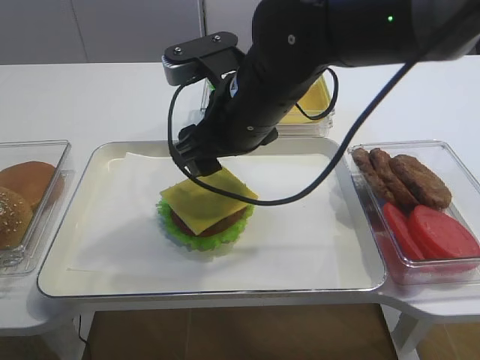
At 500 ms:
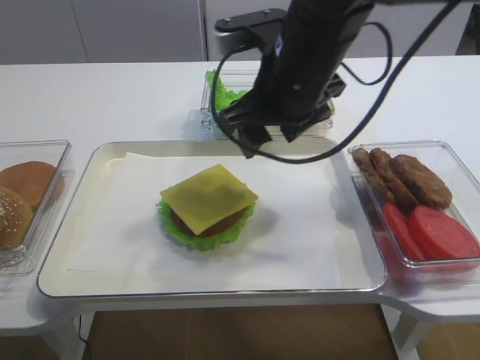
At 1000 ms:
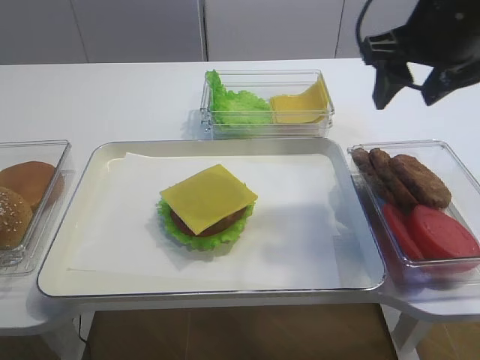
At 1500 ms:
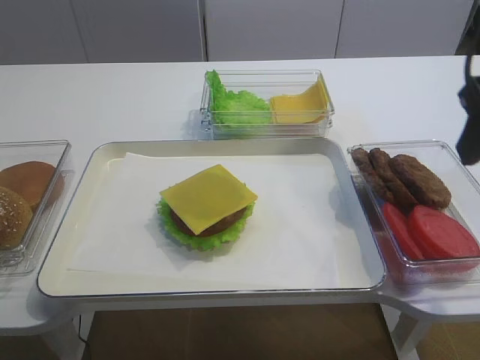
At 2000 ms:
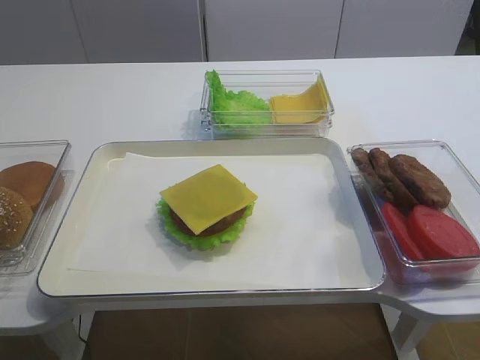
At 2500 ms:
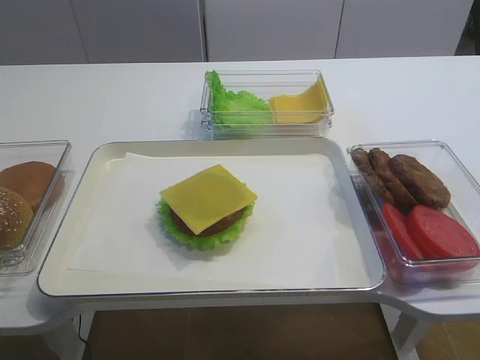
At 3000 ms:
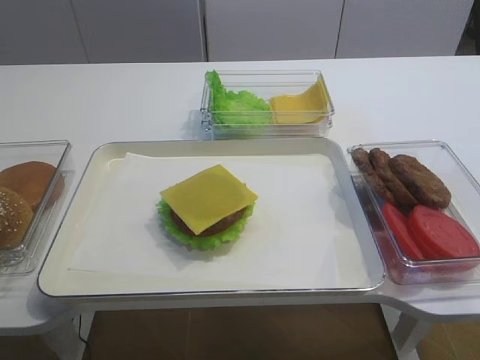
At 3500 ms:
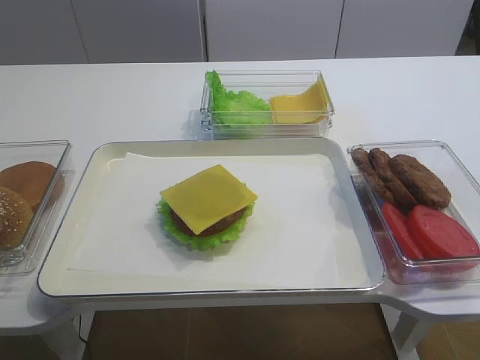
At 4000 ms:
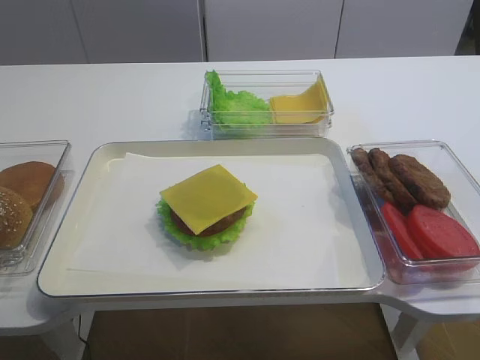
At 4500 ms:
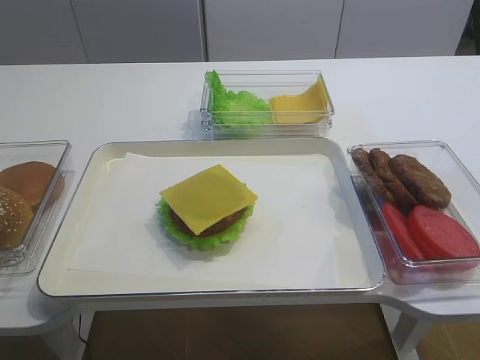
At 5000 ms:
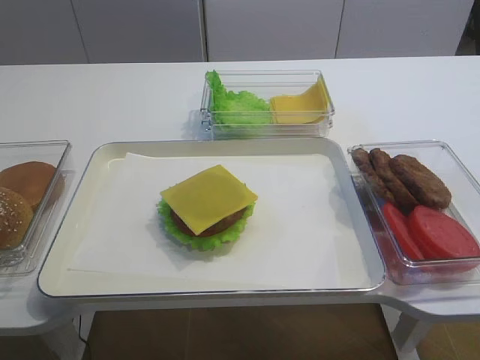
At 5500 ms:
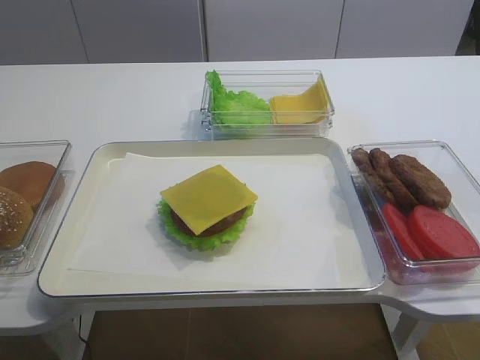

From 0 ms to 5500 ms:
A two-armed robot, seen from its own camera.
From 0 ms to 2000 ms: The right gripper is displaced backward, to the right and upward by about 35 cm.
From 2000 ms to 3500 ms: The right gripper moves downward and backward, approximately 10 cm.

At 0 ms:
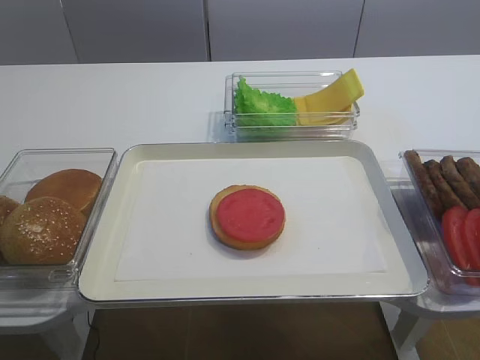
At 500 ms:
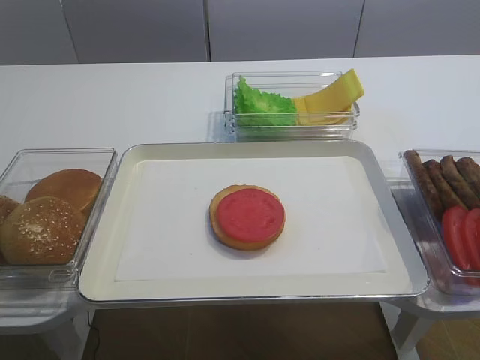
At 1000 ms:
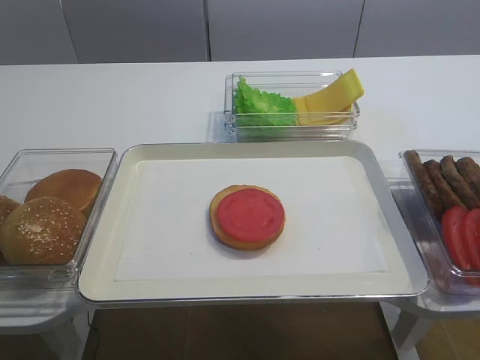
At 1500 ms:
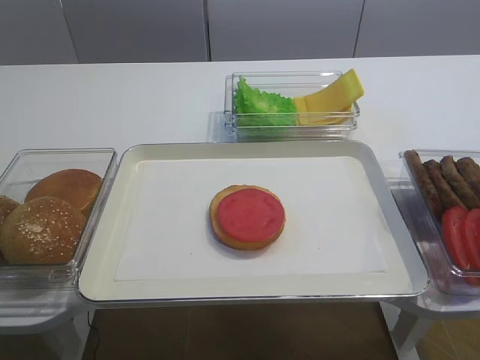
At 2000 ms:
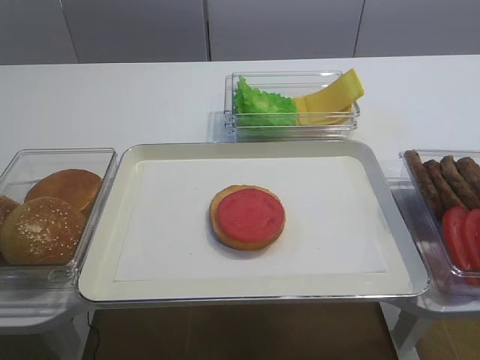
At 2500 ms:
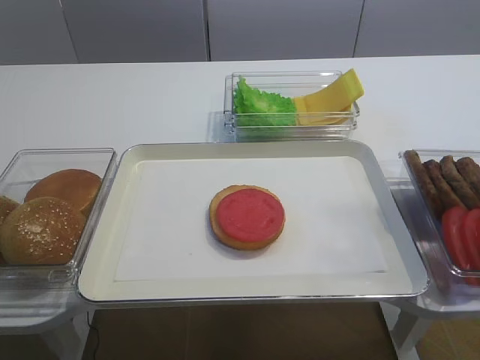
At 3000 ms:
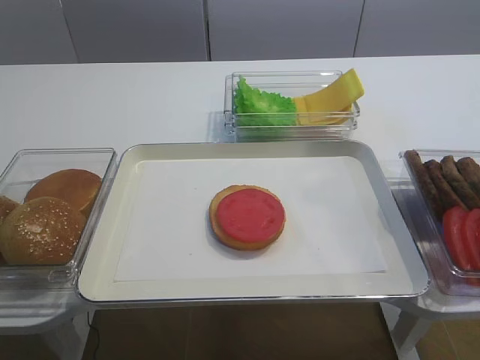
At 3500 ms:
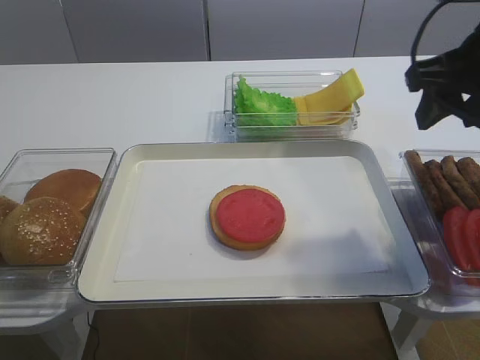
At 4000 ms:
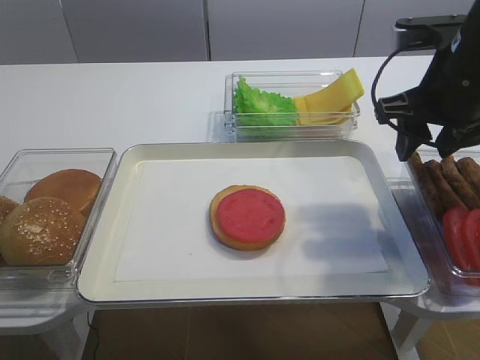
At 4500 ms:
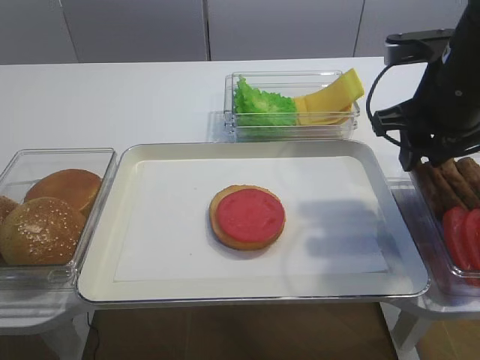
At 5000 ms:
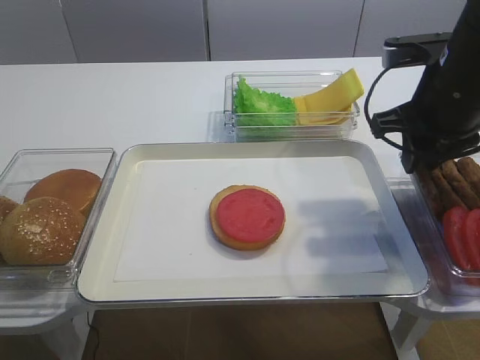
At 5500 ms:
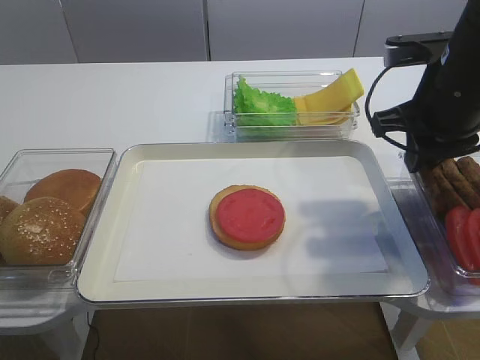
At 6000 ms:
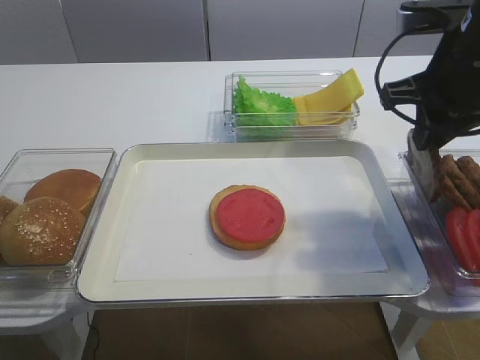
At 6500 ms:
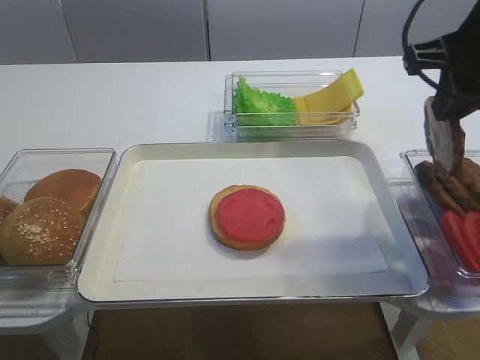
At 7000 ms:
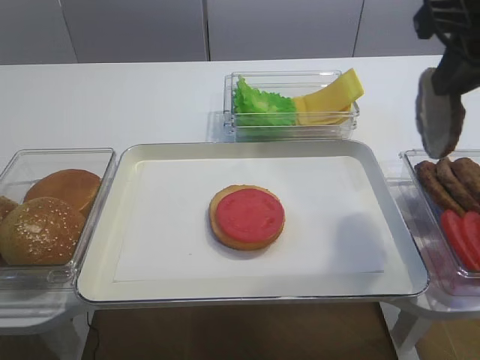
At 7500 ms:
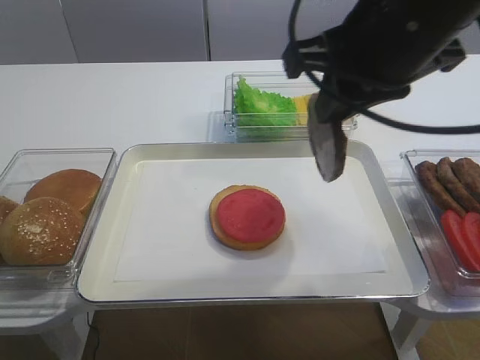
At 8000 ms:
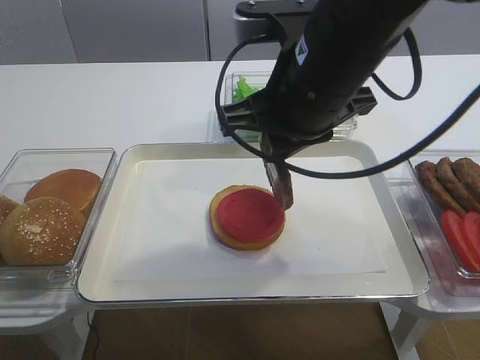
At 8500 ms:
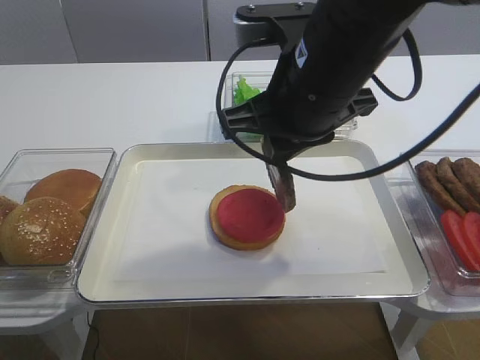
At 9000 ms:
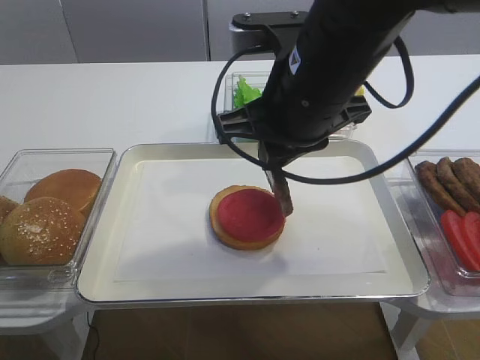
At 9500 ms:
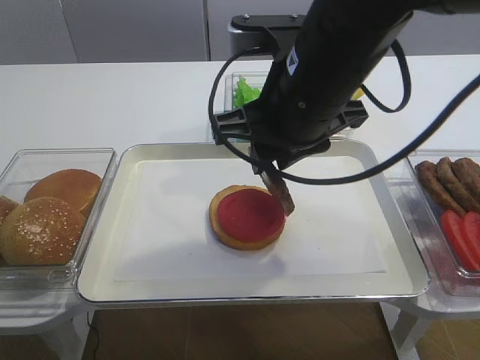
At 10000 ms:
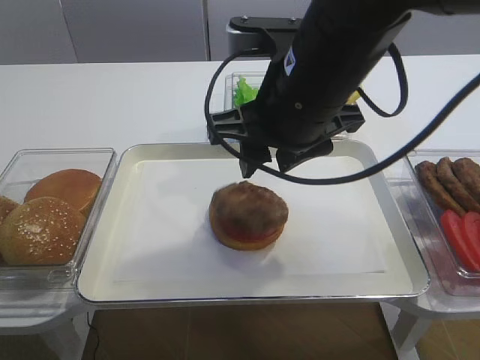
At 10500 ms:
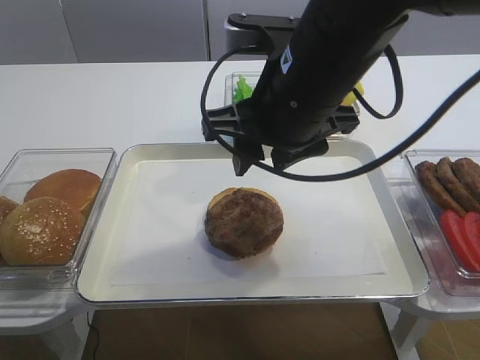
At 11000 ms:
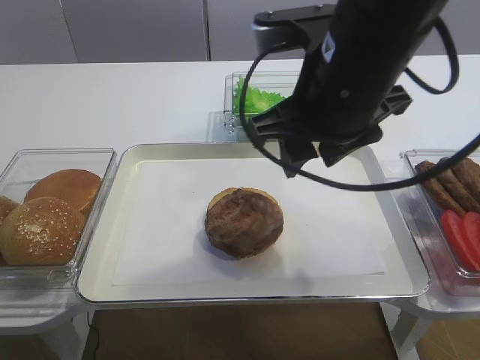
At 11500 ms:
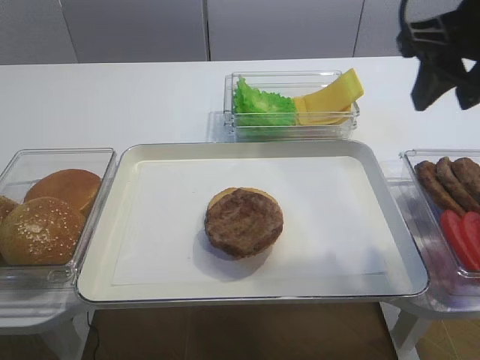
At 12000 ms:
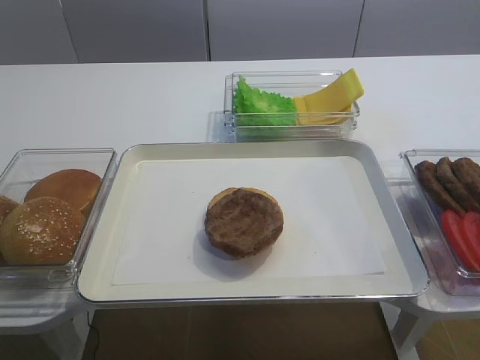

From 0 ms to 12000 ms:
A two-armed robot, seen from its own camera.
Step, from 0 ms to 6500 ms: Pick up the cutlet with the right gripper.
Step, from 7000 ms to 10500 ms: Place the cutlet on the tomato slice with the right gripper.
From 2000 ms to 4000 ms: The right gripper heads forward, covering roughly 30 cm.
From 4000 ms to 6000 ms: The right gripper closes.
From 6000 ms to 8000 ms: The right gripper is displaced to the left by about 15 cm.
From 8000 ms to 10000 ms: The right gripper opens its fingers.
From 10000 ms to 12000 ms: The right gripper moves to the right and backward, some 20 cm.

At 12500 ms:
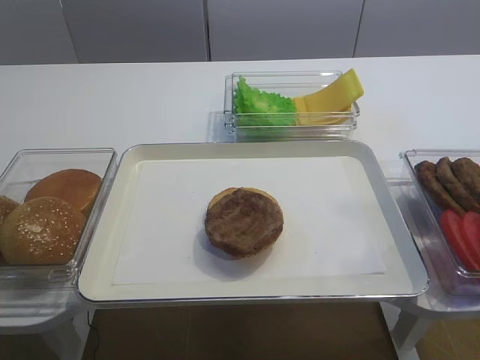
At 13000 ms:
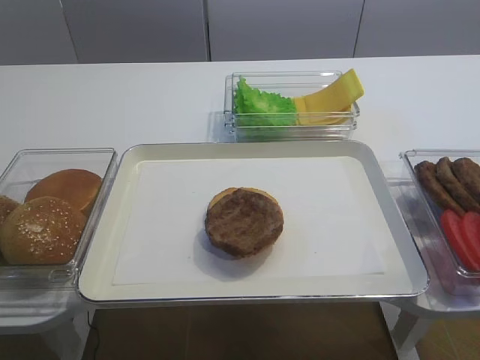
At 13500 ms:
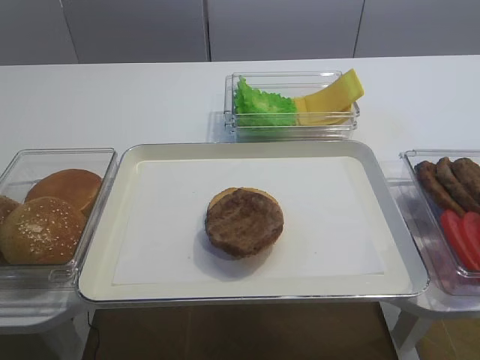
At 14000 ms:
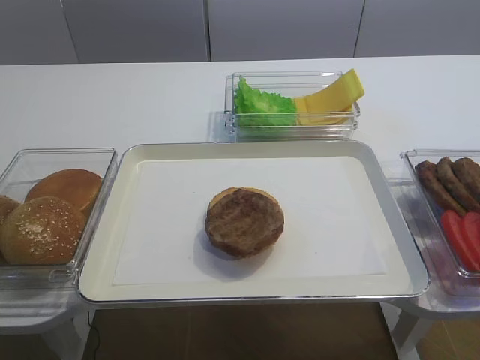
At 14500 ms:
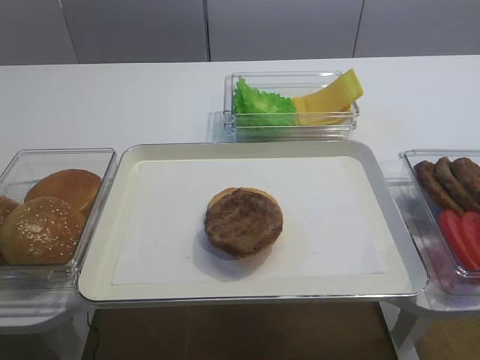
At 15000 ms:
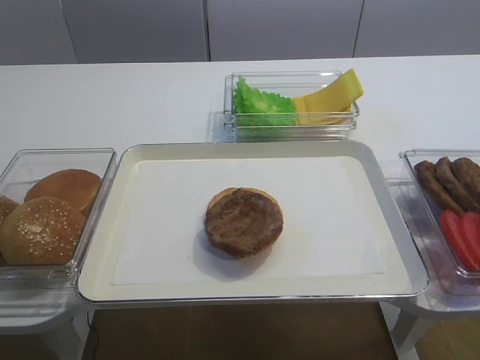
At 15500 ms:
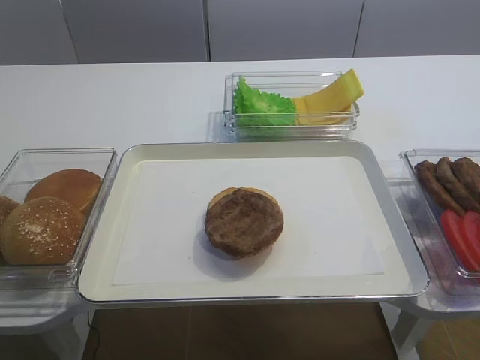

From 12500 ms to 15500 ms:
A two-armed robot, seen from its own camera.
From 14000 ms to 15500 ms: The two grippers keep their place.

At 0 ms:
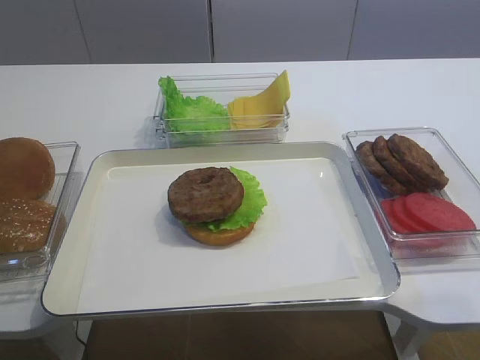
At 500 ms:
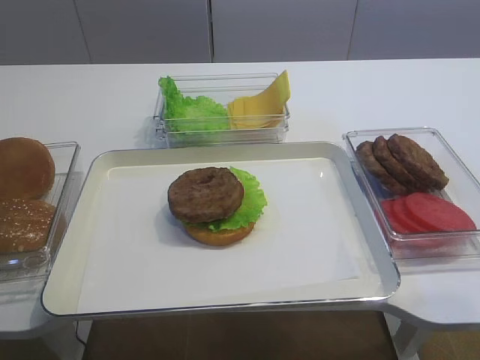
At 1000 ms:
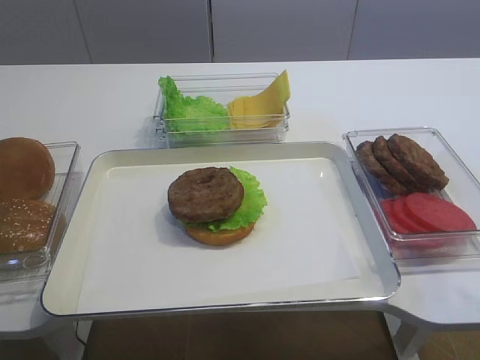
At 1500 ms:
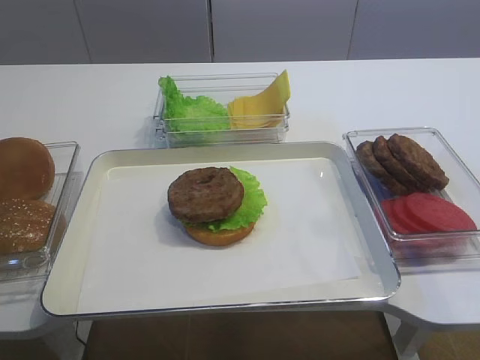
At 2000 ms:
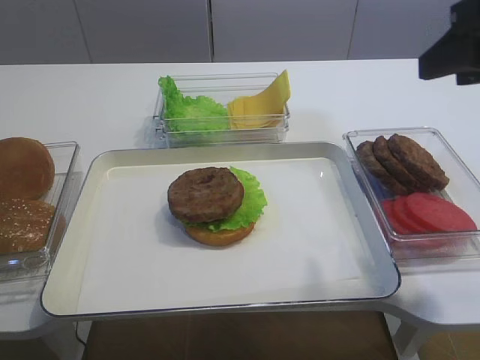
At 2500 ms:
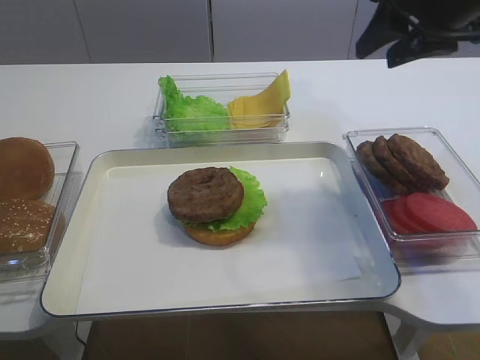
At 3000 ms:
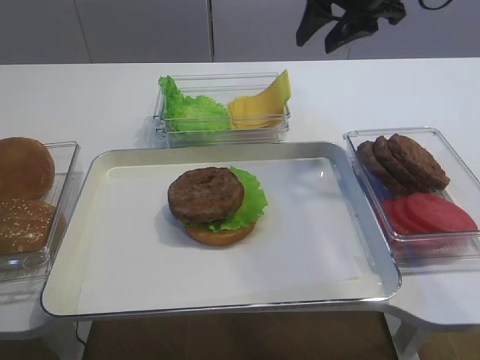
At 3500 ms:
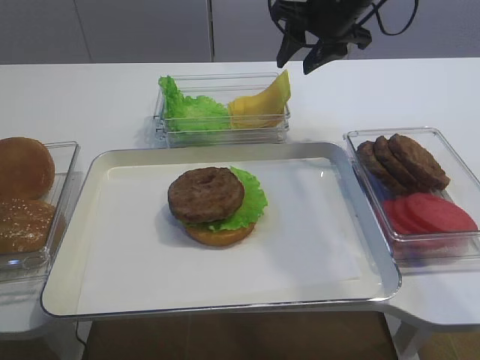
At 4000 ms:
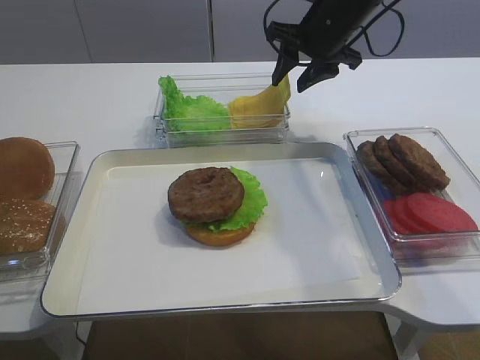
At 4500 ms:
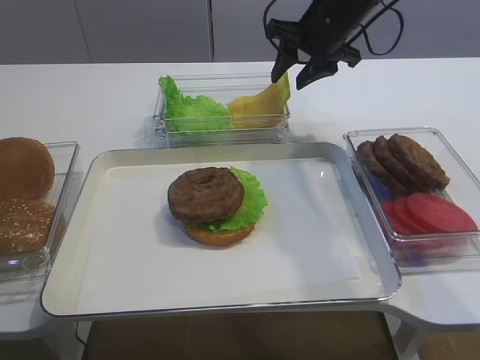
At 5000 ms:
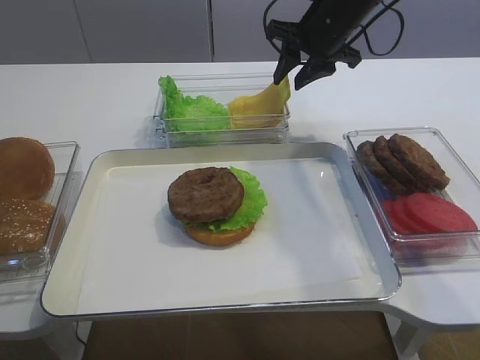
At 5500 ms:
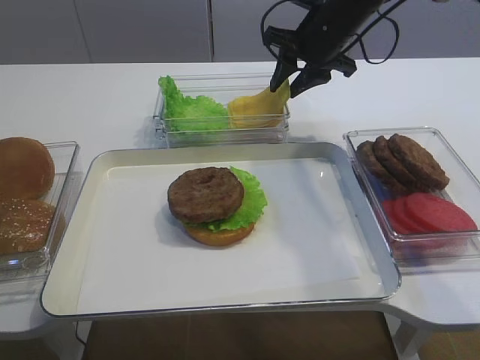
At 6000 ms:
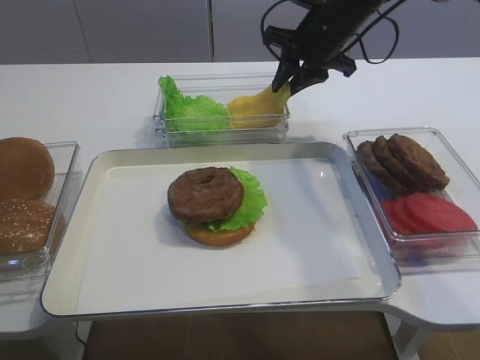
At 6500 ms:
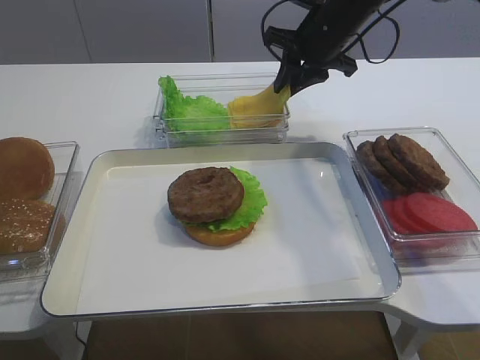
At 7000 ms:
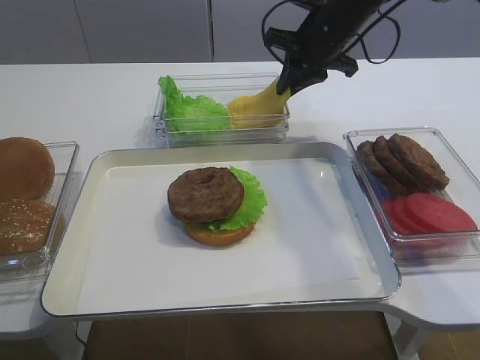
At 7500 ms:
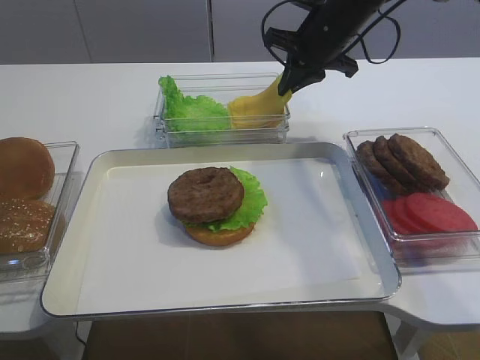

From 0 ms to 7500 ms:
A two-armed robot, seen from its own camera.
From 2000 ms to 4000 ms: The right gripper is displaced forward by approximately 25 cm.
From 4000 ms to 5500 ms: The two grippers keep their place.
From 5500 ms to 7500 ms: The right gripper closes its fingers.
